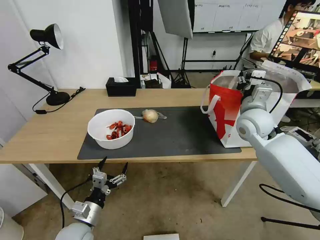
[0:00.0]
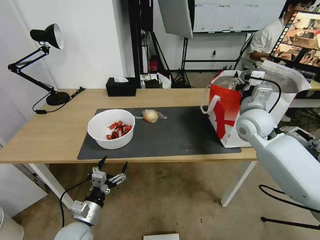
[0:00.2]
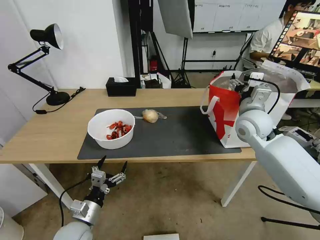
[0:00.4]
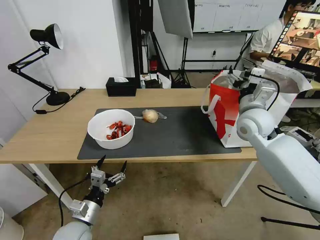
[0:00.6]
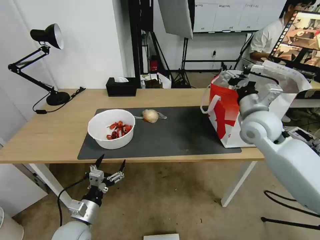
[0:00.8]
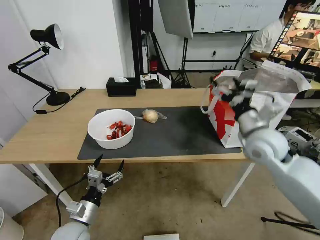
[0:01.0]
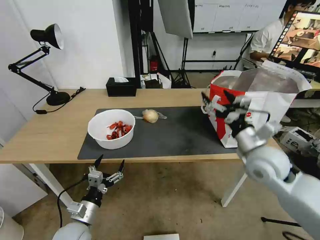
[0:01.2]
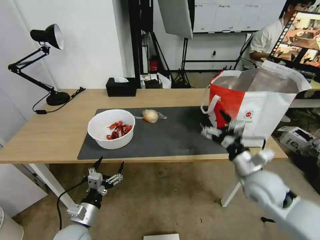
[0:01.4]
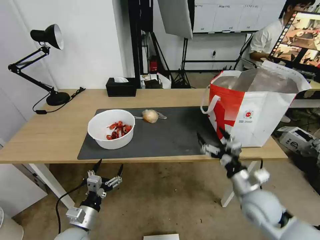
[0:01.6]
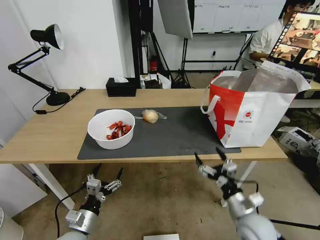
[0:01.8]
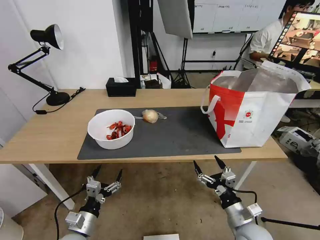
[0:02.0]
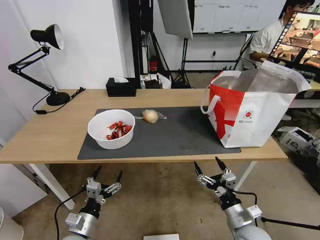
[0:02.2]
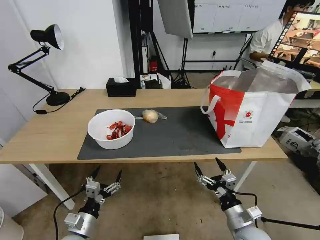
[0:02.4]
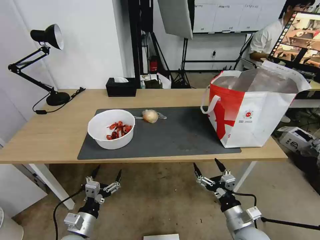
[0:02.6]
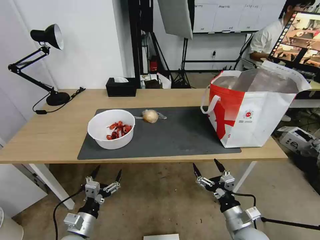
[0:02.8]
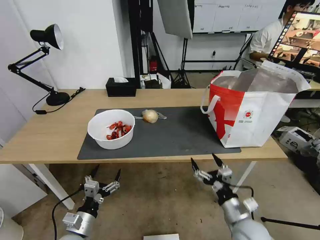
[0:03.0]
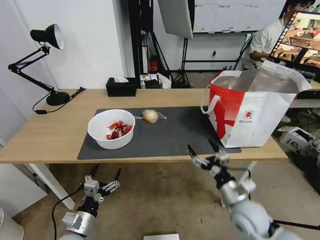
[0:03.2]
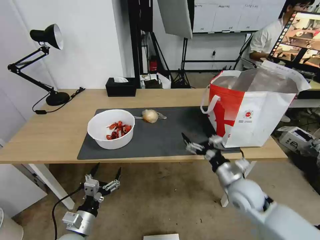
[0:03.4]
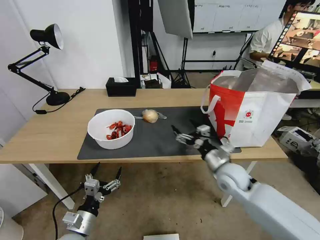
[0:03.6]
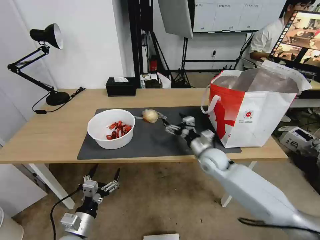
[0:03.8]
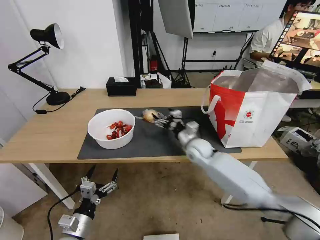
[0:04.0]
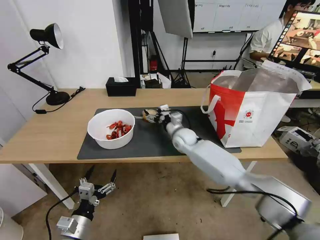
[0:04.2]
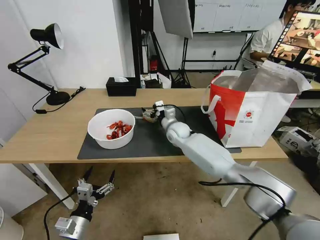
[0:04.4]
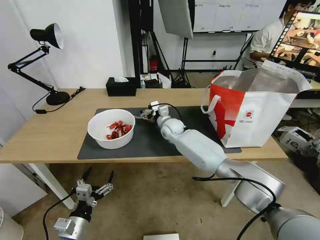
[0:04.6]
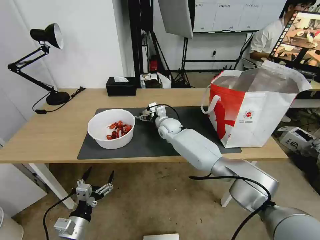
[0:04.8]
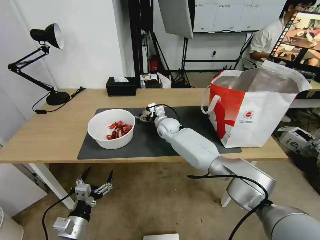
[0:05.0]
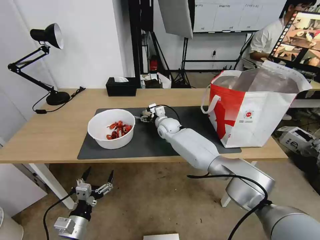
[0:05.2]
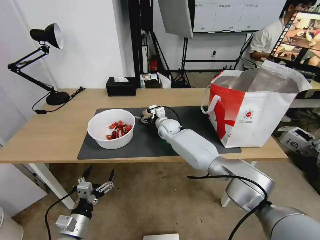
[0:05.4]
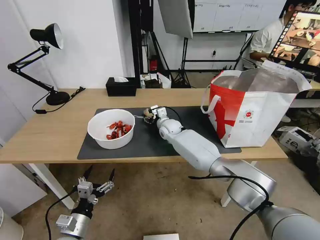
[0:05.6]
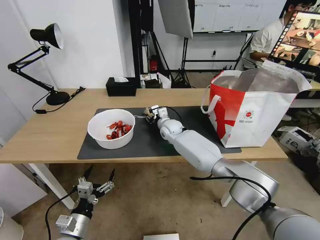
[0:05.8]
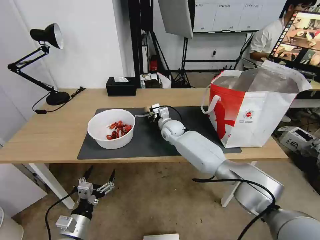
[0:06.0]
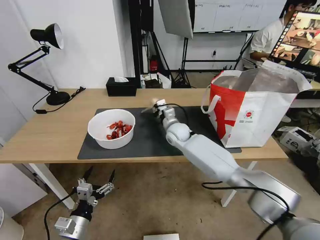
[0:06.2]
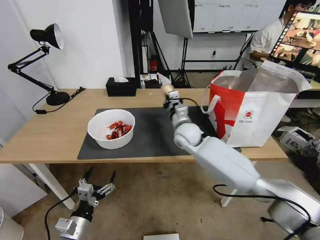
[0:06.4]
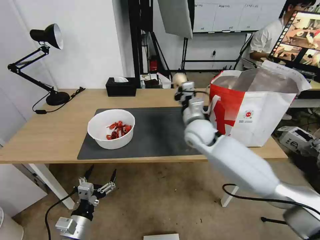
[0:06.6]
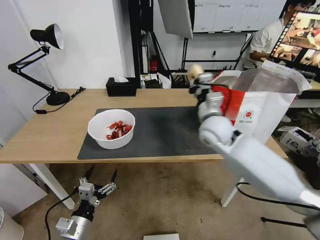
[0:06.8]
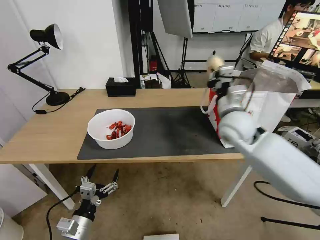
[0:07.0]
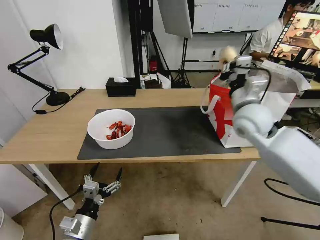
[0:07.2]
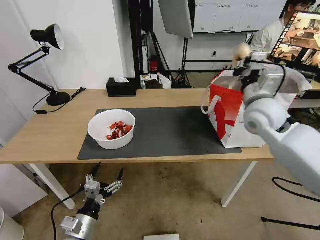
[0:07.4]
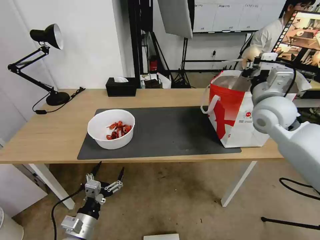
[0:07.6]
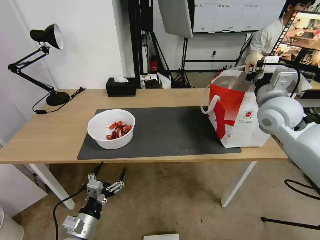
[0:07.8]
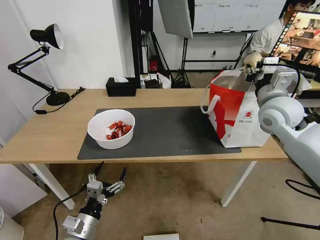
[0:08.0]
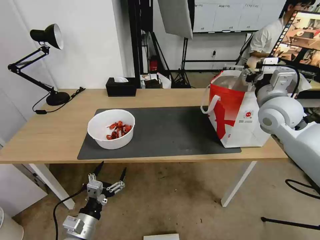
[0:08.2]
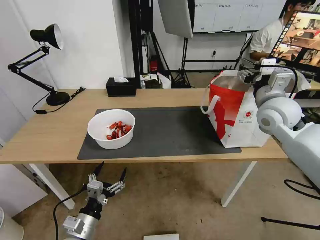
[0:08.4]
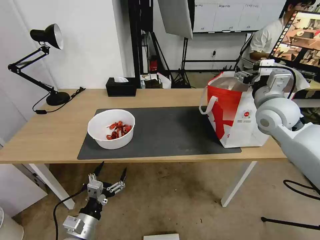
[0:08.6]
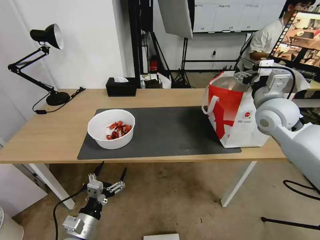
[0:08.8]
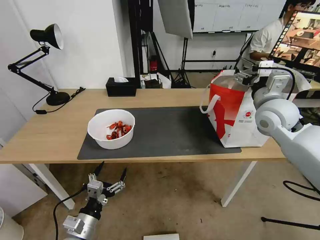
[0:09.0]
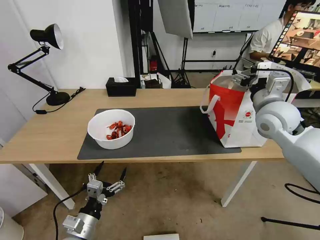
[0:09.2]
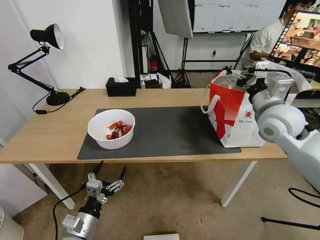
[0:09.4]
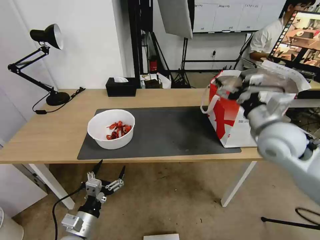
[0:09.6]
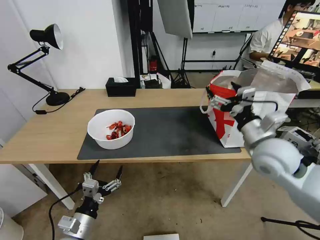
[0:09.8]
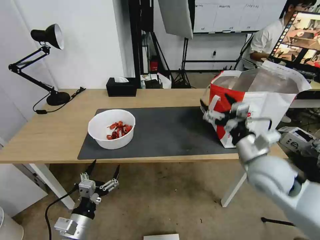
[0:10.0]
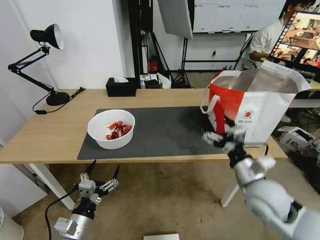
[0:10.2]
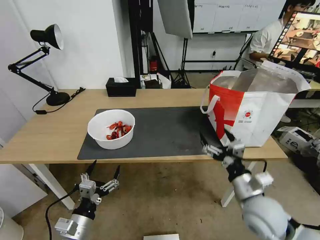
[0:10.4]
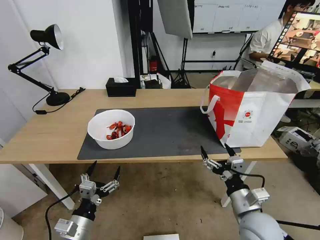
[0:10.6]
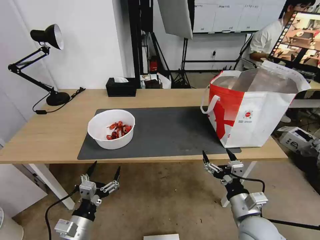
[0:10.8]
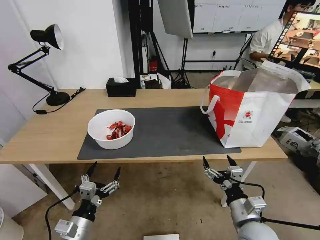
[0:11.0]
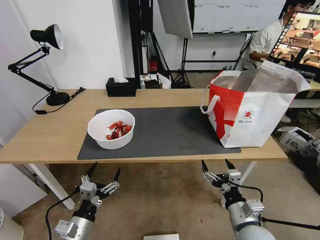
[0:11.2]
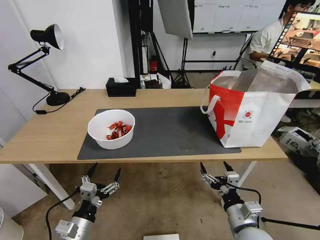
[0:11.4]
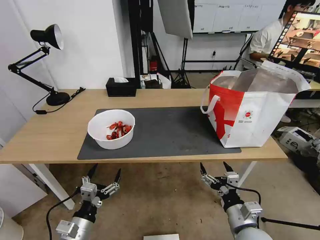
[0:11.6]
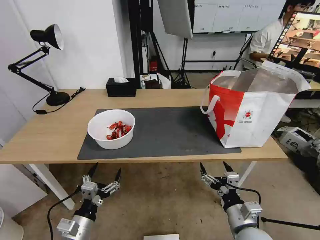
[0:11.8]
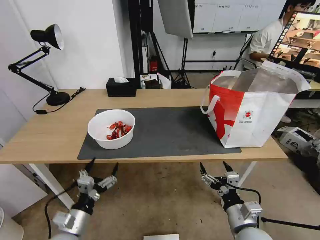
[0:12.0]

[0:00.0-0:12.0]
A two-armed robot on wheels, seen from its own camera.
Task of the whole recording: Pick up the trash from the table and place it into the takeout bag.
0:00.0 to 0:01.6: The right gripper moves backward and downward, about 25 cm, and opens its fingers.
0:01.6 to 0:03.0: The right gripper travels backward and downward by approximately 10 cm.
0:03.0 to 0:04.4: The right gripper goes approximately 40 cm forward and to the left.
0:04.4 to 0:06.0: The right gripper closes up.
0:06.0 to 0:07.6: The right gripper shifts about 35 cm to the right, upward and backward.
0:07.6 to 0:09.0: The right gripper opens its fingers.
0:09.0 to 0:10.4: The right gripper shifts some 30 cm backward and downward.
0:10.4 to 0:12.0: The right gripper moves downward and backward, some 10 cm.

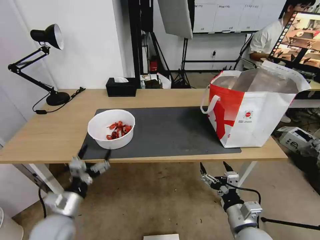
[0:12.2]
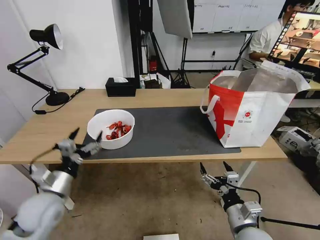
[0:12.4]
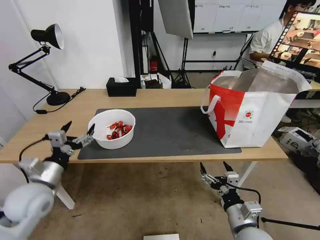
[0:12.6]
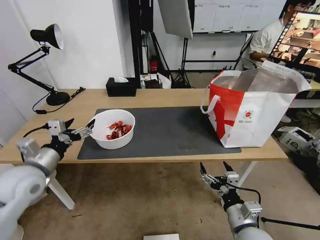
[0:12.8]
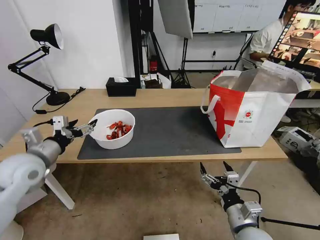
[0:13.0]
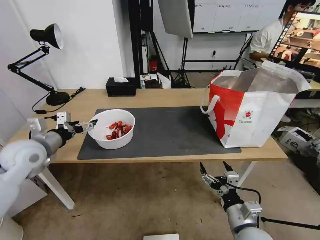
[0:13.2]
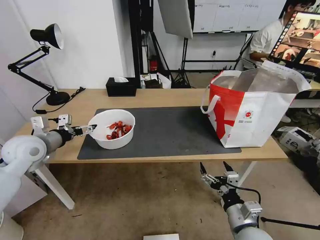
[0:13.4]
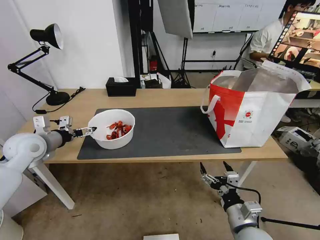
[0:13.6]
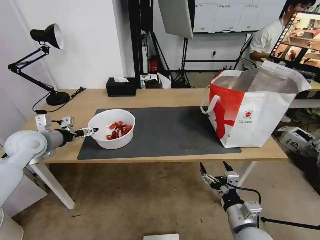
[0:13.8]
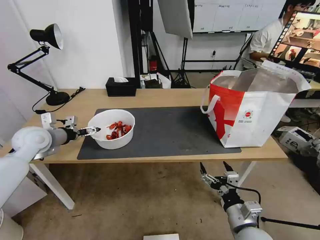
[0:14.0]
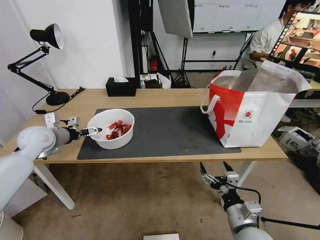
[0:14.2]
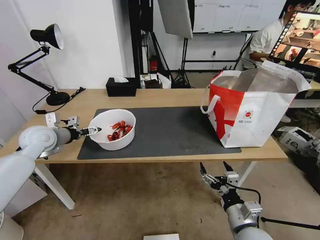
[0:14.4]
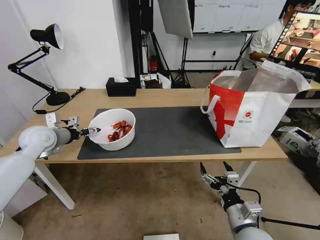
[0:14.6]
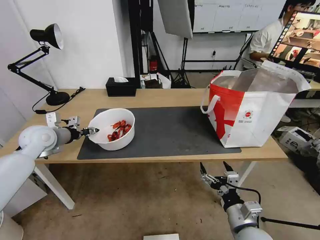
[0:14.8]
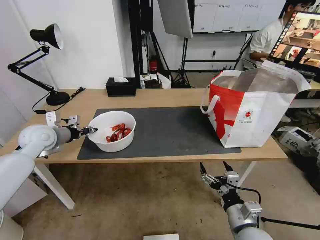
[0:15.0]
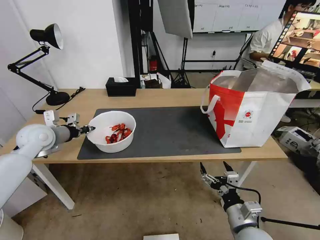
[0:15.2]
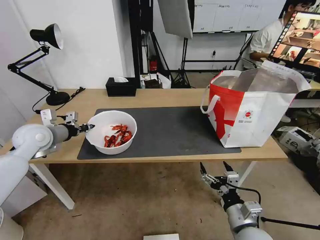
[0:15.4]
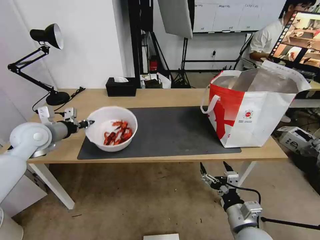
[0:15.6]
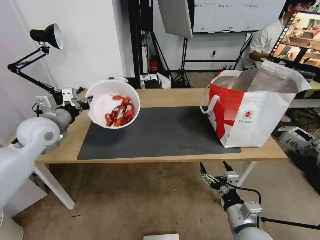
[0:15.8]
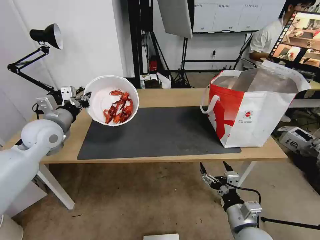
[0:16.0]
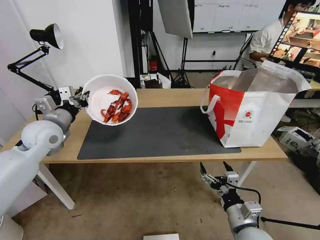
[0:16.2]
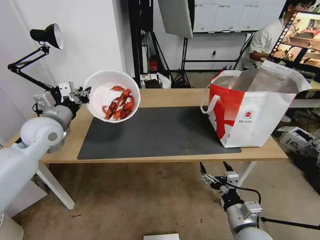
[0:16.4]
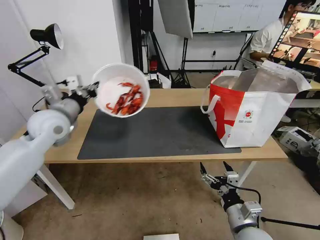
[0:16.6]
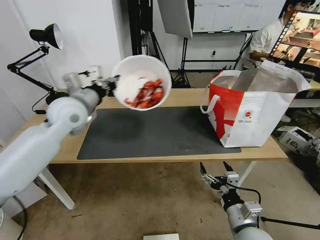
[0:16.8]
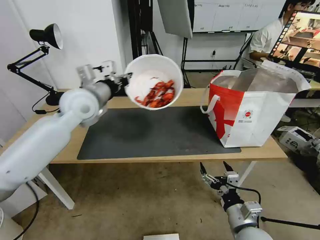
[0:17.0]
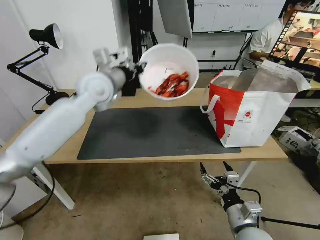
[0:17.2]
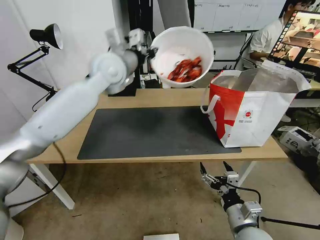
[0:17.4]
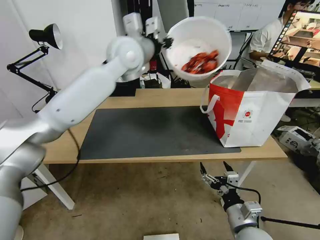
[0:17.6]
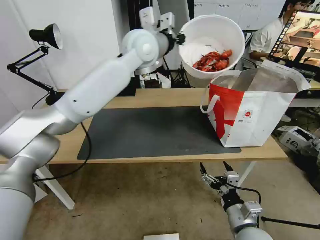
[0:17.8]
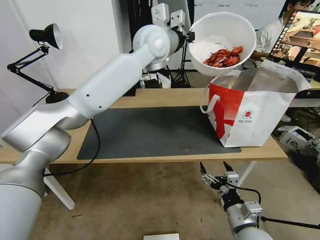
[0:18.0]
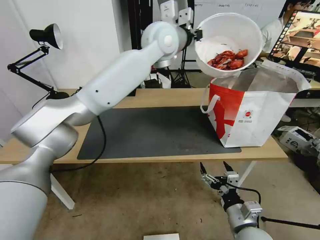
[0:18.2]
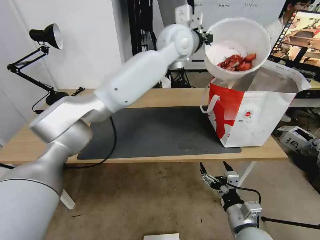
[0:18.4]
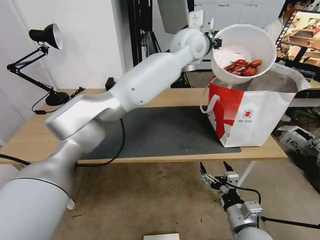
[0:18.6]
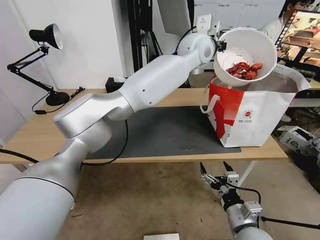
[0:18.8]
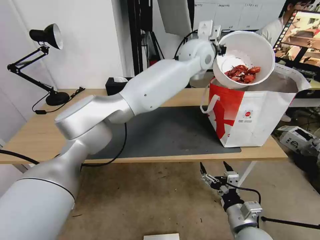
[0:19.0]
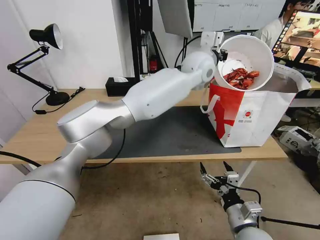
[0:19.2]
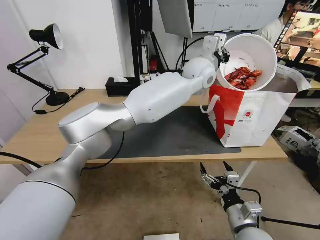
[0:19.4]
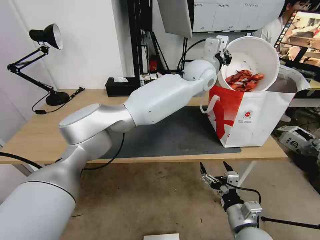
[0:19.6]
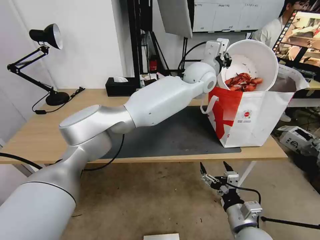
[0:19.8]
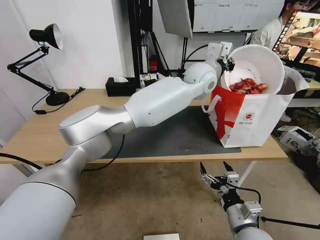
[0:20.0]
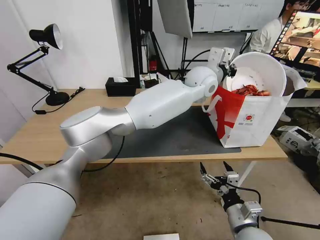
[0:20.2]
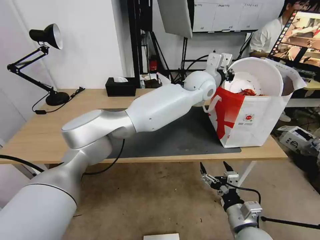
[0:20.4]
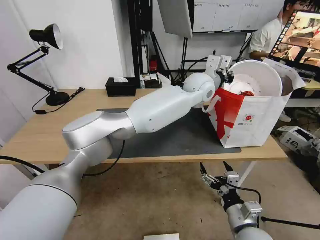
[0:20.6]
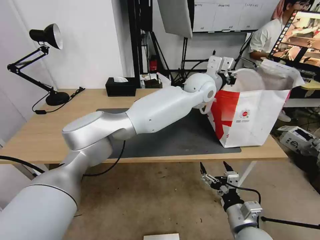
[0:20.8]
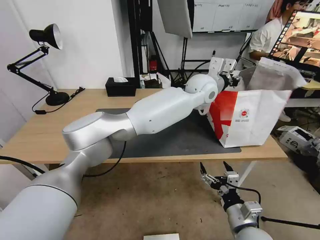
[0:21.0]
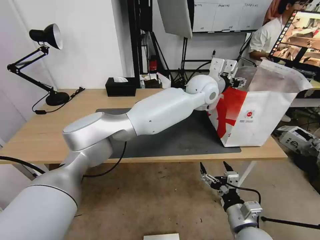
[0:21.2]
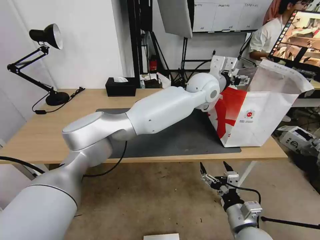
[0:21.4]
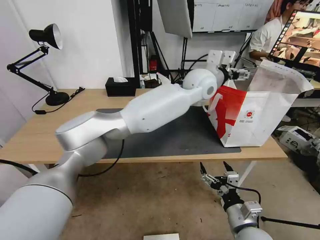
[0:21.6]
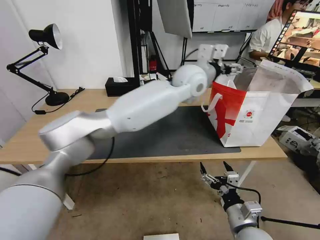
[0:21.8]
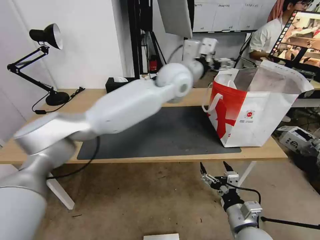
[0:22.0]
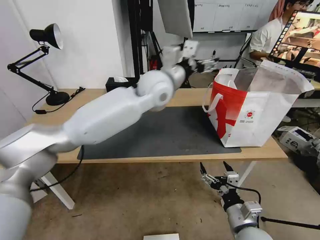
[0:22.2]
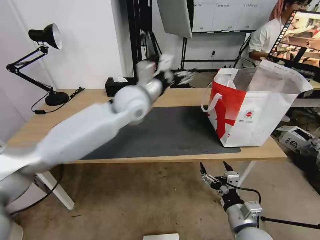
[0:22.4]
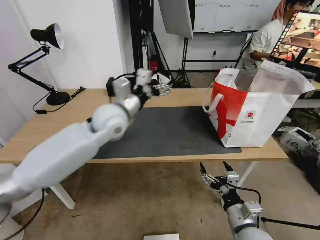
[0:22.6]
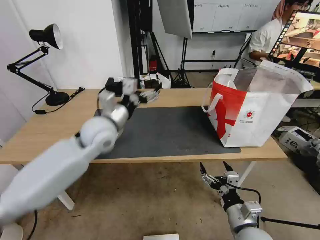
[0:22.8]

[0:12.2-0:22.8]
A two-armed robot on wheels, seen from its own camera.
Task of the whole recording: Pick up the trash from the table and place it into the takeout bag.
0:12.2 to 0:13.8: The left gripper goes some 25 cm forward, upward and to the left.
0:13.8 to 0:15.2: The left gripper closes its fingers.
0:15.2 to 0:16.8: The left gripper is displaced to the right and upward by roughly 15 cm.
0:16.8 to 0:18.2: The left gripper shifts approximately 30 cm to the right, upward and forward.
0:18.2 to 0:19.8: The left gripper is displaced to the right and downward by roughly 15 cm.
0:19.8 to 0:21.2: The left gripper opens its fingers.
0:21.2 to 0:22.8: The left gripper shifts approximately 35 cm to the left and backward.
